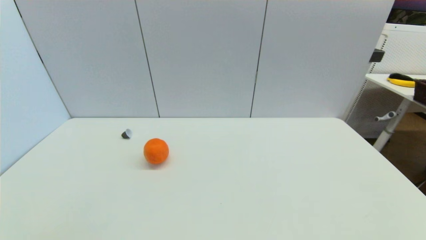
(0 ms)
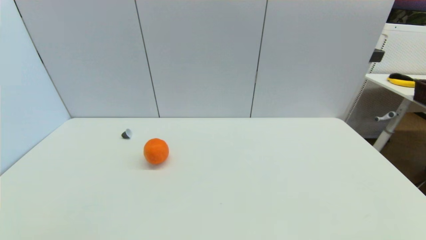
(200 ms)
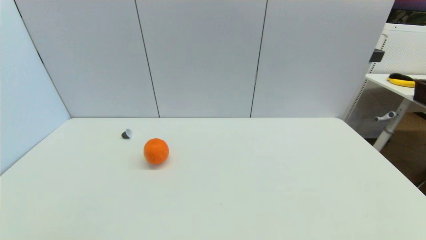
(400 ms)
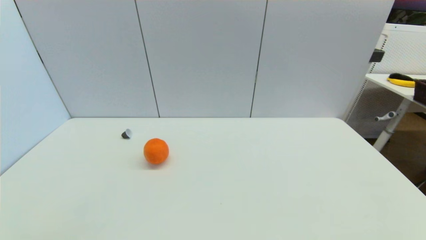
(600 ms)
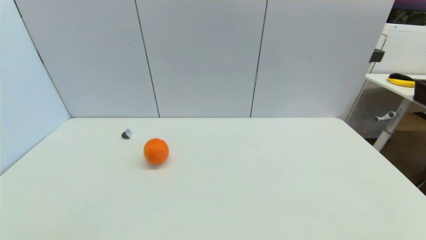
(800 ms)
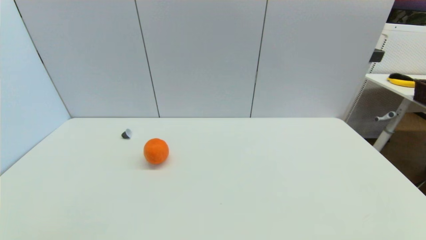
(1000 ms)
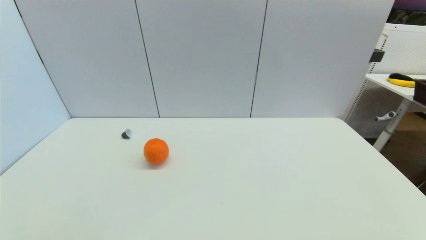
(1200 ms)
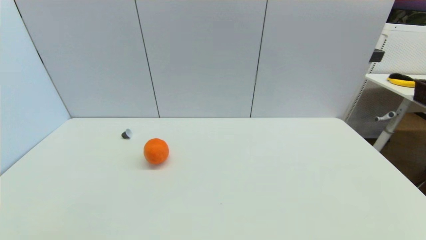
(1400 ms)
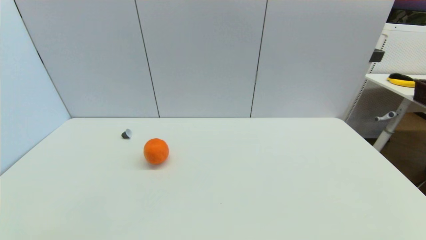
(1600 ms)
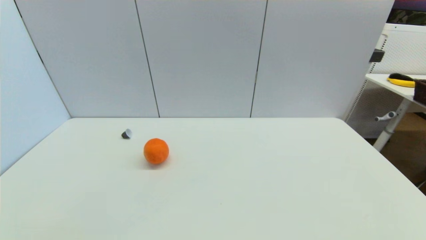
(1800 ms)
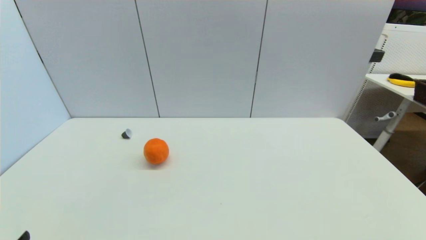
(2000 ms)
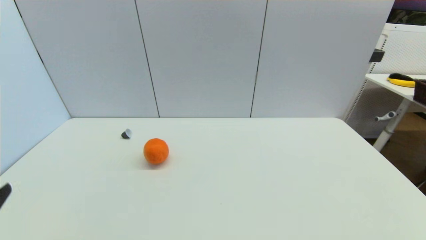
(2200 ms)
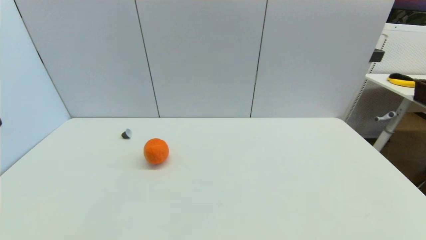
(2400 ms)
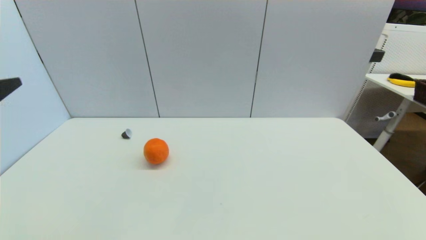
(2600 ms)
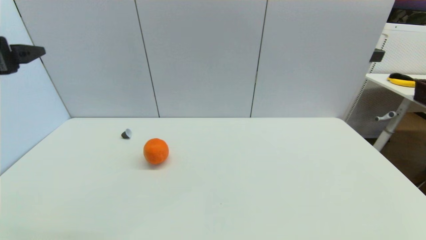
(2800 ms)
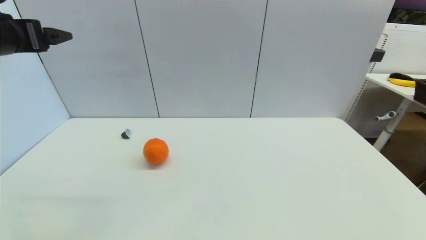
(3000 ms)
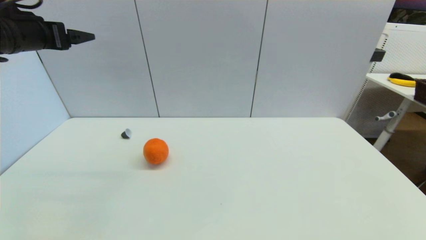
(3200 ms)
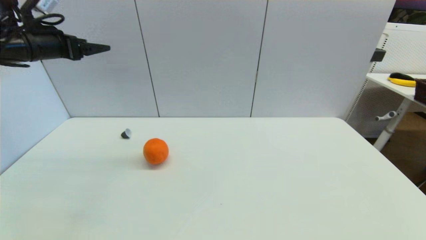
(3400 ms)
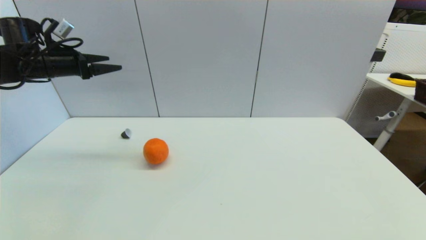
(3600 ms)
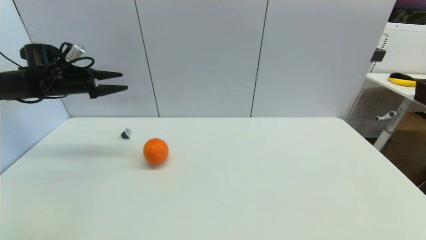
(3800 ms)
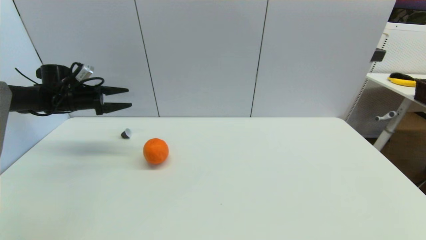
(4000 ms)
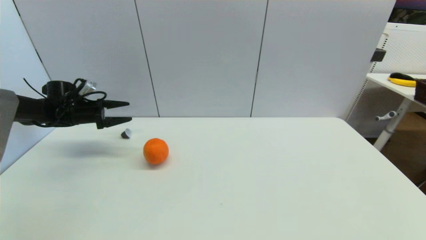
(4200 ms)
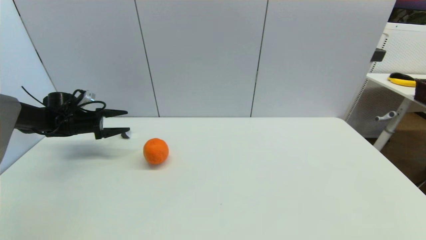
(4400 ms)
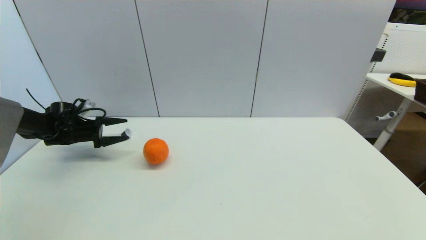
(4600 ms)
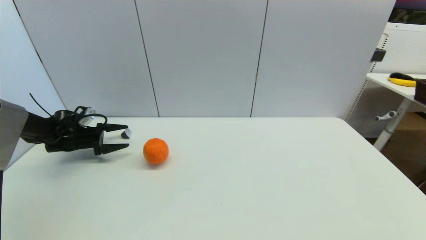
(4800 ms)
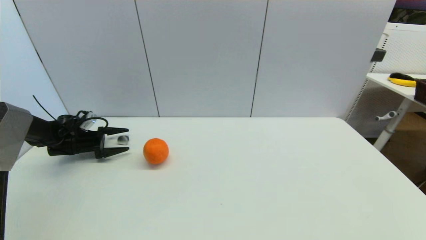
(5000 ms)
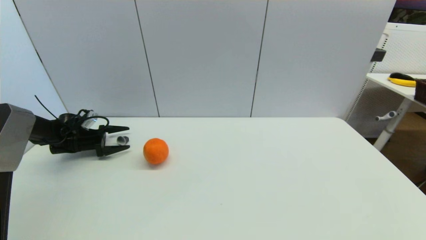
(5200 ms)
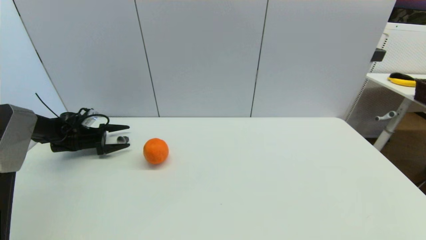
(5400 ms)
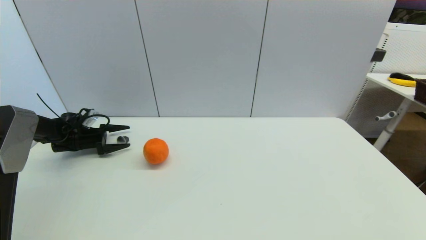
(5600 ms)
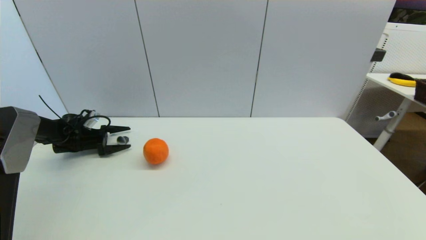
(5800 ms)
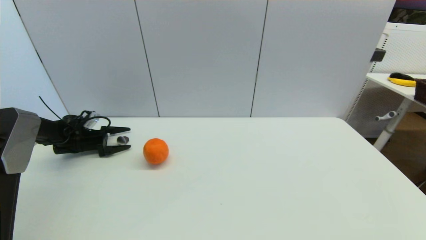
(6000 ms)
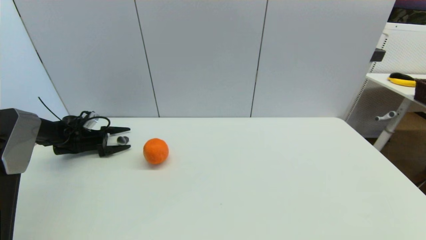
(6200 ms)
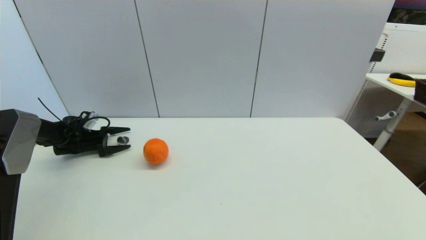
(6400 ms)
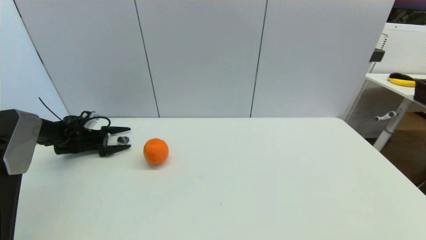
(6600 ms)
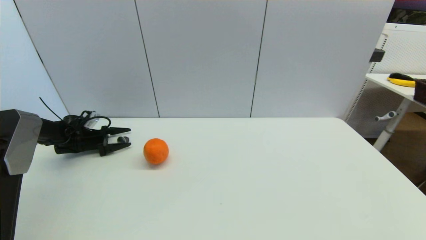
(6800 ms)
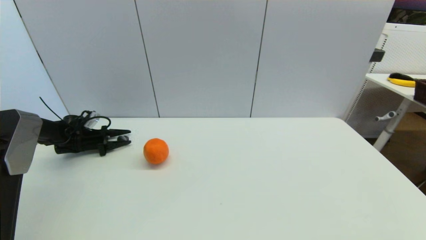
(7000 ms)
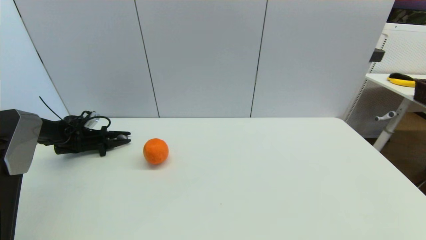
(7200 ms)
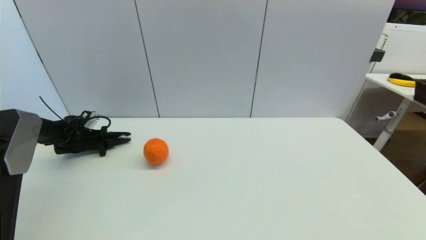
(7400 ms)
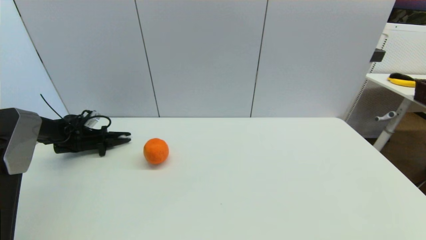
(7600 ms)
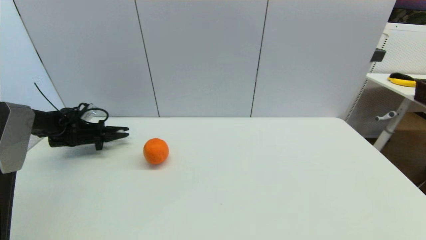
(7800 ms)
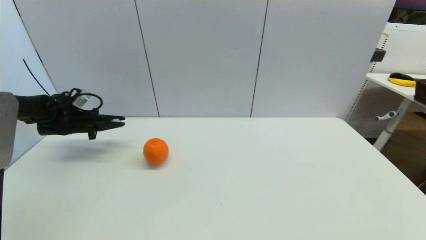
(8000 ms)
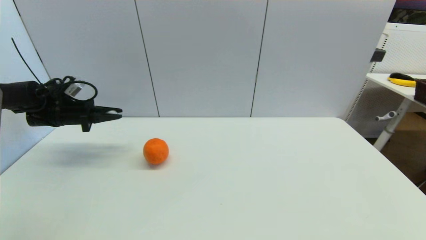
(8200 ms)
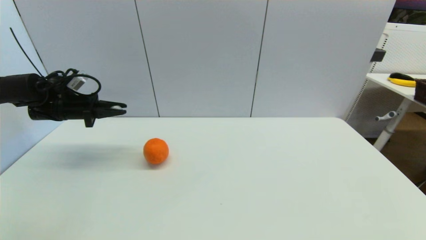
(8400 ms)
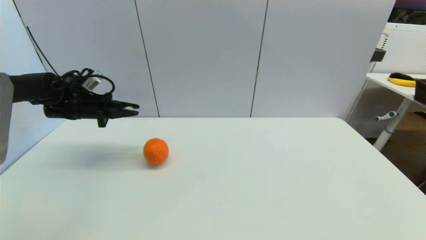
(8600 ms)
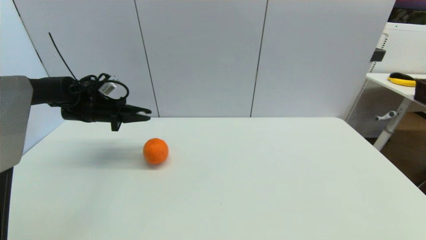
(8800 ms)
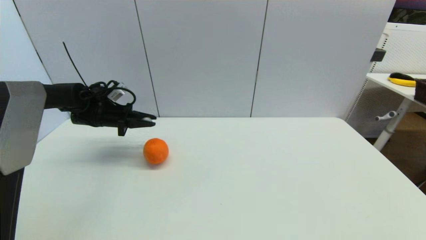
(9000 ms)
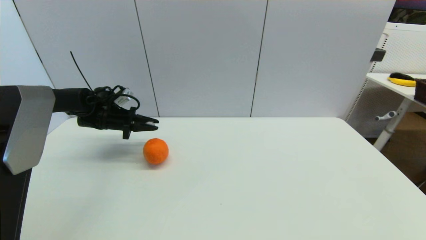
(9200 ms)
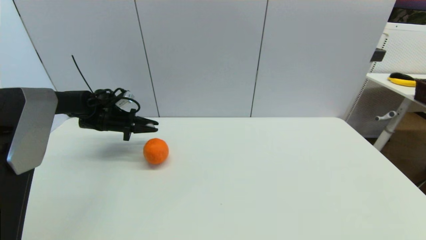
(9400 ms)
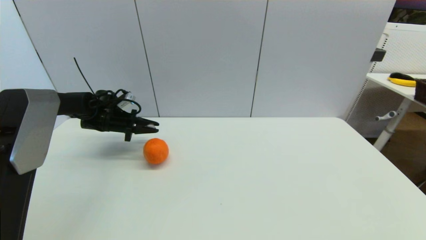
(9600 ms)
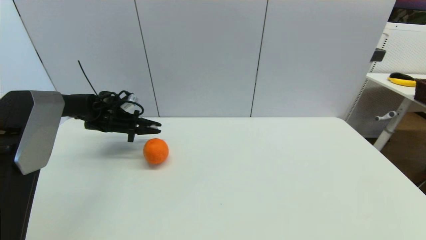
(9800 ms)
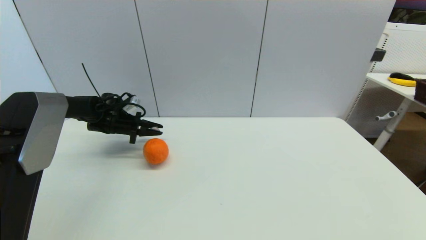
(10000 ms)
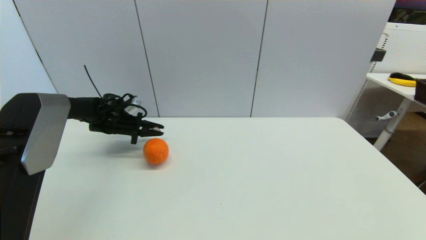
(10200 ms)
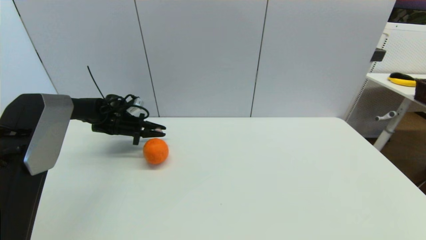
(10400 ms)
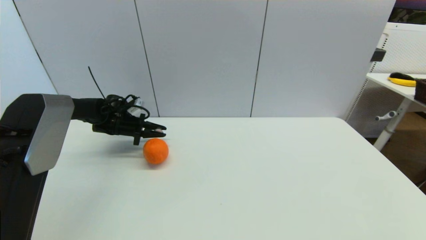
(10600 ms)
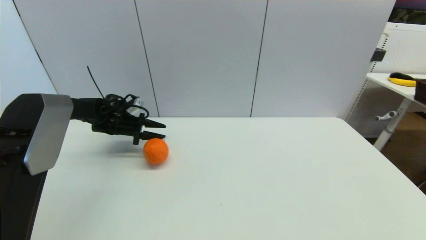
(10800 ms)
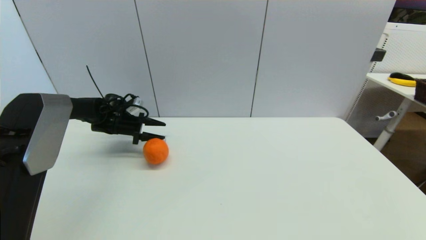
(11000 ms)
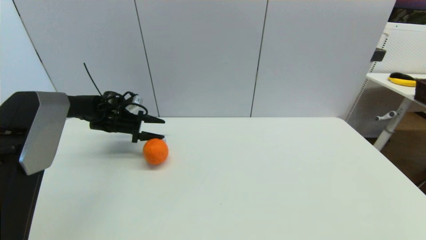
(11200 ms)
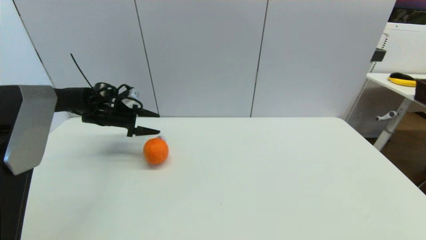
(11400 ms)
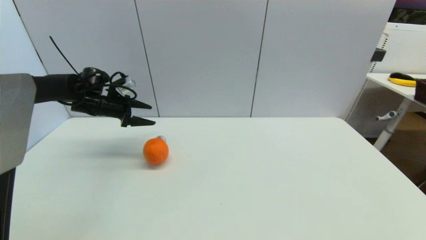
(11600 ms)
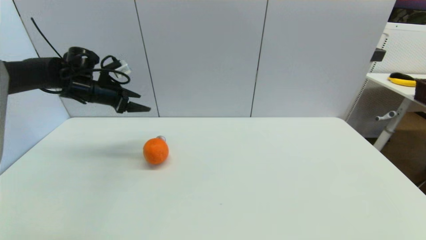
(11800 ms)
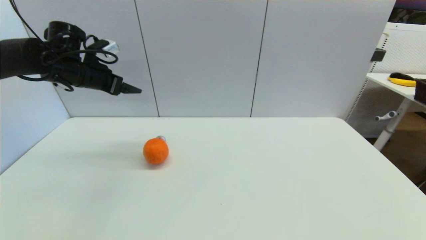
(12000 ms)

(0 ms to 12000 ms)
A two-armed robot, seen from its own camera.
Step, 2000 ms - 7600 ms: Grasp the coffee capsule with left gripper.
Step, 8000 ms - 11200 ms: Place the coffee capsule on the table with left gripper.
1600 ms - 3000 ms: The left gripper travels upward and forward by some 40 cm.
3000 ms - 4400 ms: The left gripper is displaced downward and forward by roughly 30 cm.
4400 ms - 6000 ms: The left gripper moves downward, approximately 5 cm.
6000 ms - 7600 ms: The left gripper closes its fingers.
7600 ms - 9000 ms: The left gripper heads to the right and upward, covering some 15 cm.
9000 ms - 10400 ms: The left gripper changes place by roughly 5 cm.
10400 ms - 12000 ms: The left gripper travels upward by approximately 20 cm, and opens.

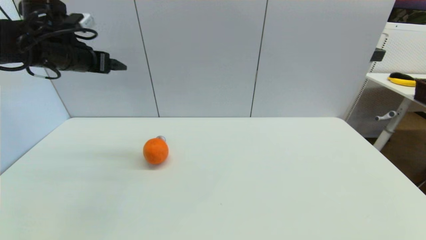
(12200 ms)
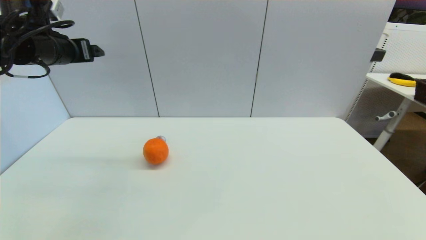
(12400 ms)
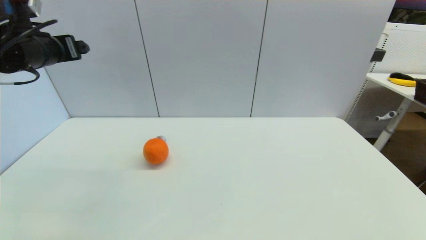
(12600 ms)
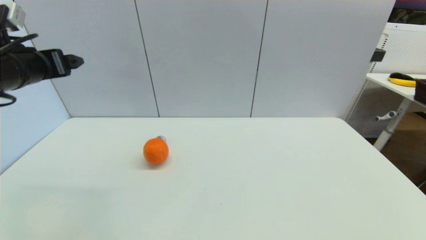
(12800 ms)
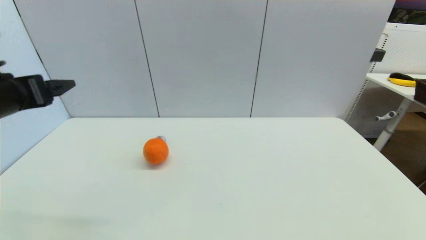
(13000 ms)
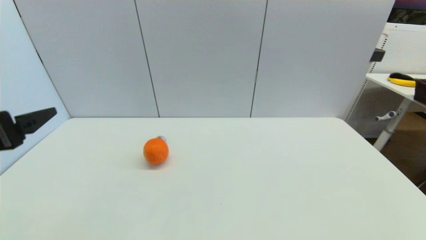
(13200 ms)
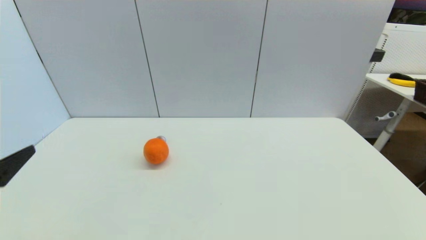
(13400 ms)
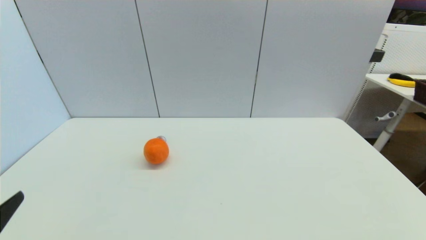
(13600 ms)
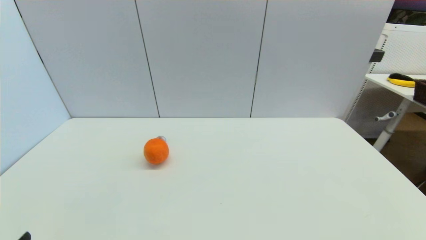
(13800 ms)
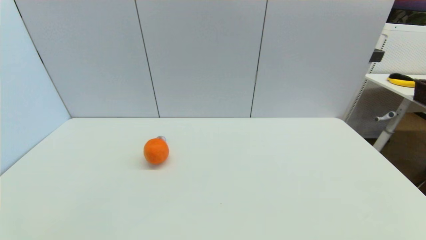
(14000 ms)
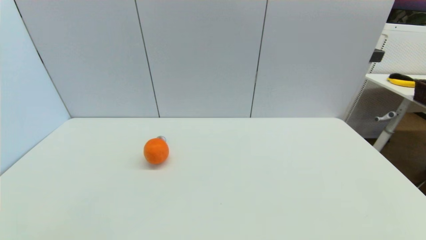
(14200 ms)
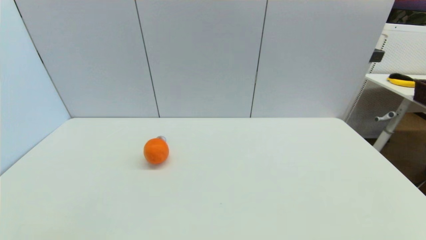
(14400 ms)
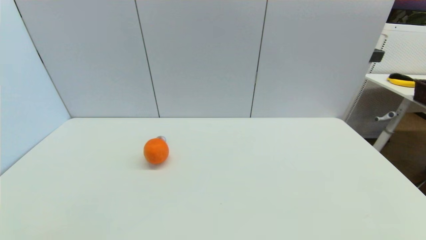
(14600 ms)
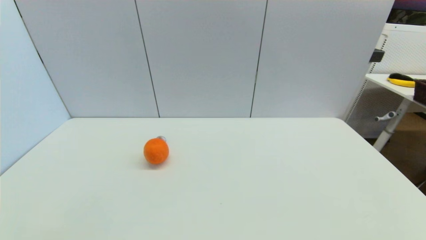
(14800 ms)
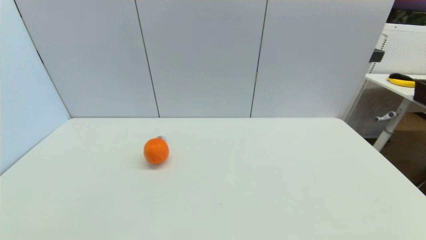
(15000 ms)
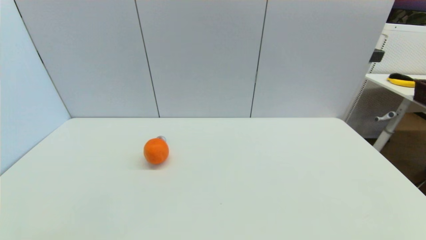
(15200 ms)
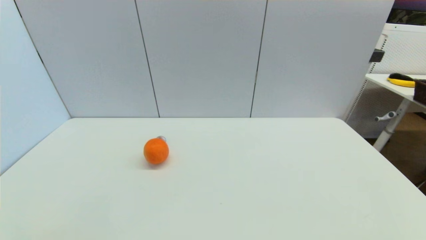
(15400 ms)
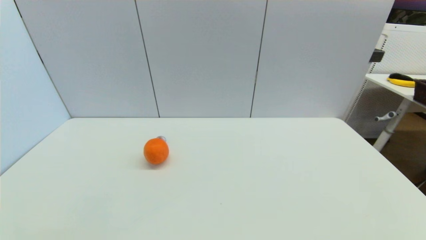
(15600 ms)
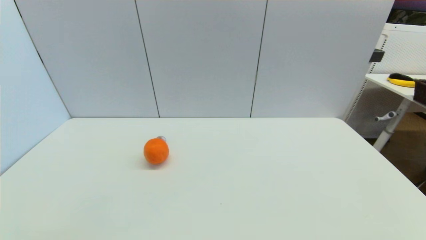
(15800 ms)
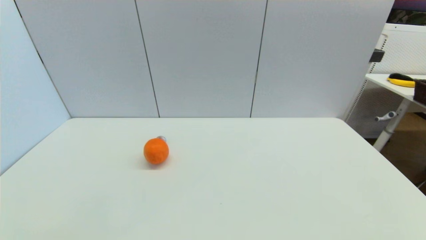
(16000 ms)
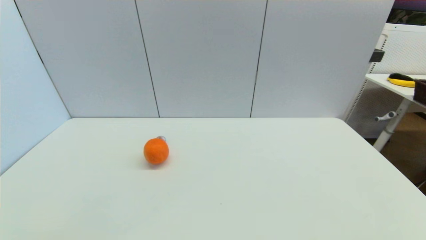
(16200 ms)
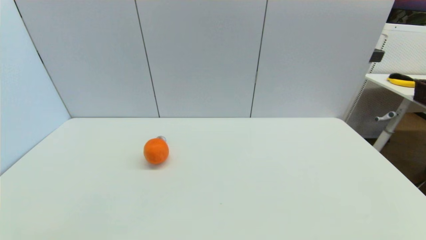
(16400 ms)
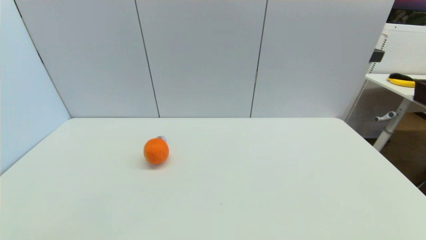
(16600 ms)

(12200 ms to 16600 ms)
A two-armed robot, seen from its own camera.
12200 ms - 13600 ms: The left gripper shifts roughly 40 cm backward and downward.
15200 ms - 16600 ms: Neither gripper changes place.
